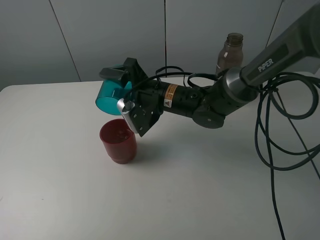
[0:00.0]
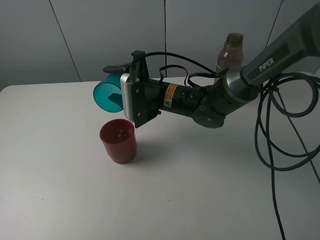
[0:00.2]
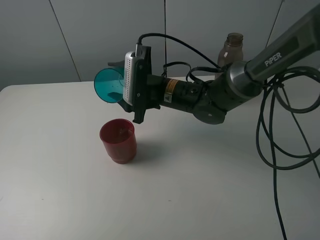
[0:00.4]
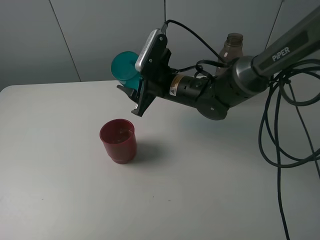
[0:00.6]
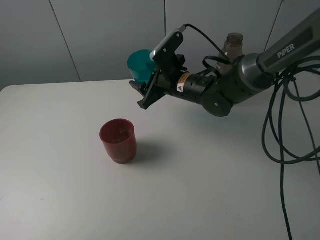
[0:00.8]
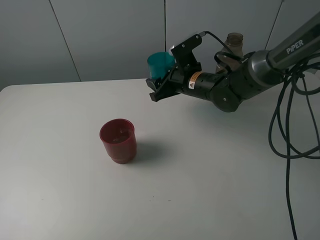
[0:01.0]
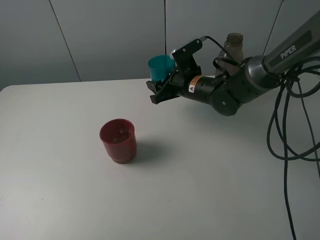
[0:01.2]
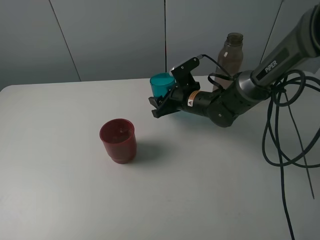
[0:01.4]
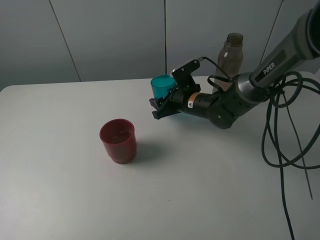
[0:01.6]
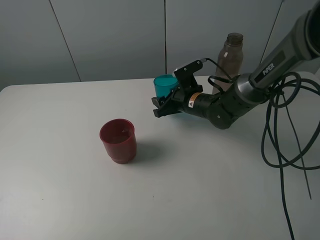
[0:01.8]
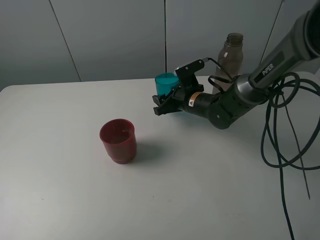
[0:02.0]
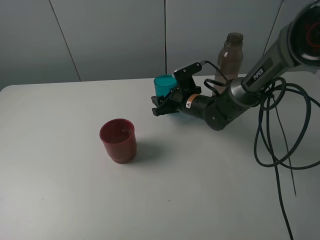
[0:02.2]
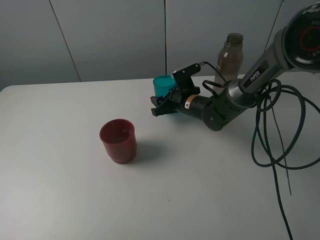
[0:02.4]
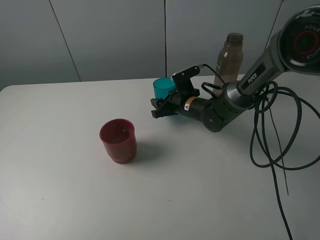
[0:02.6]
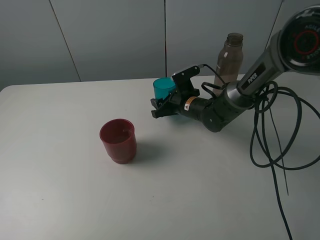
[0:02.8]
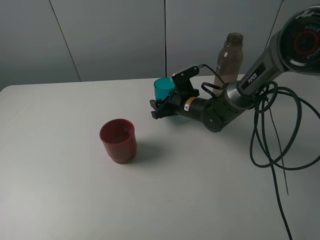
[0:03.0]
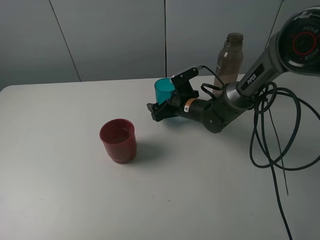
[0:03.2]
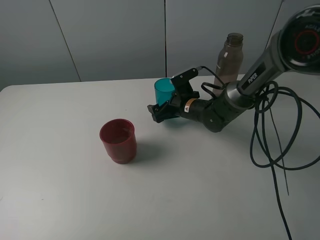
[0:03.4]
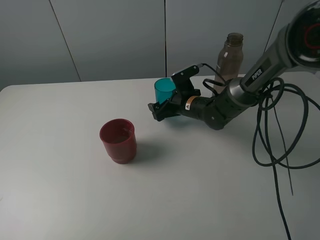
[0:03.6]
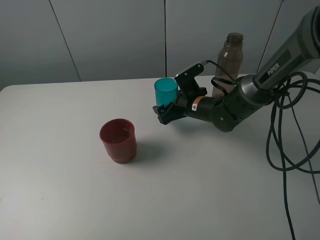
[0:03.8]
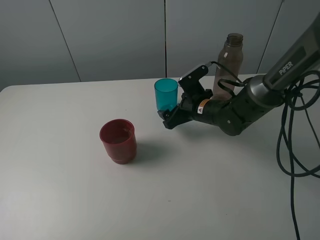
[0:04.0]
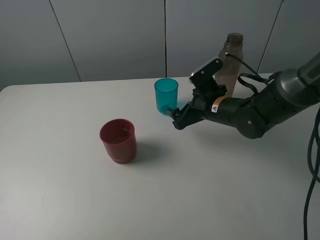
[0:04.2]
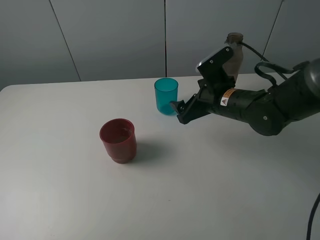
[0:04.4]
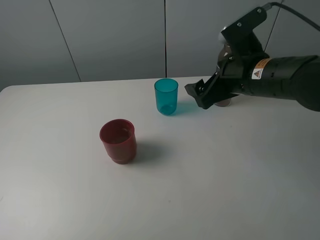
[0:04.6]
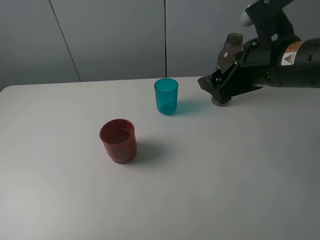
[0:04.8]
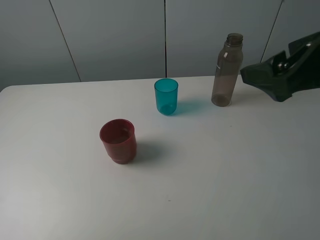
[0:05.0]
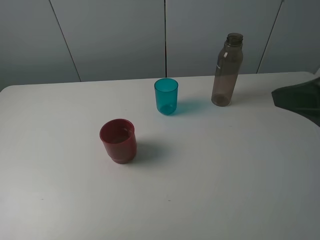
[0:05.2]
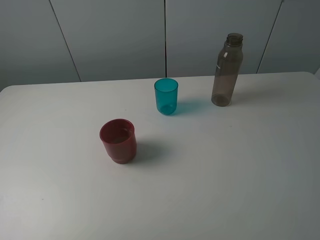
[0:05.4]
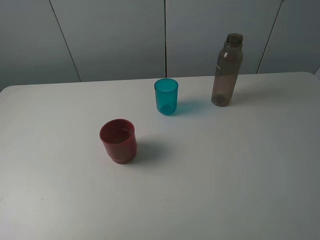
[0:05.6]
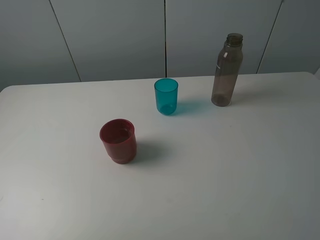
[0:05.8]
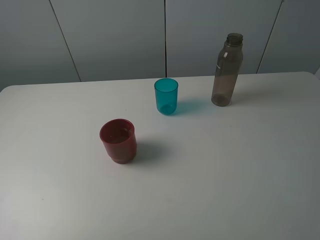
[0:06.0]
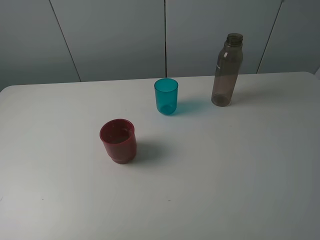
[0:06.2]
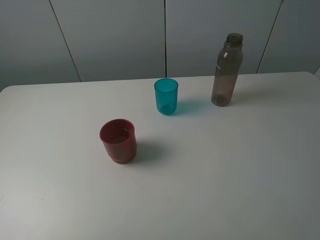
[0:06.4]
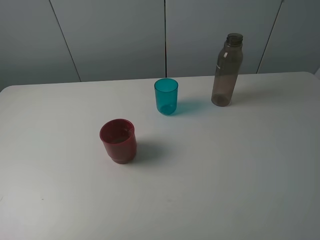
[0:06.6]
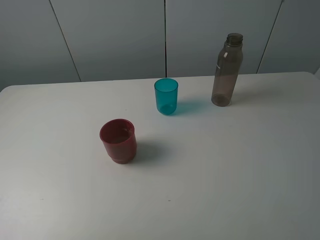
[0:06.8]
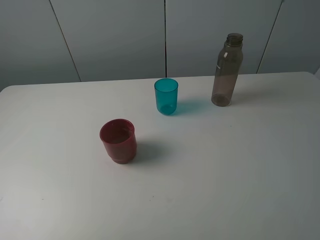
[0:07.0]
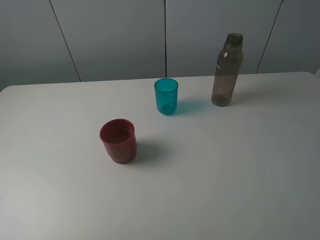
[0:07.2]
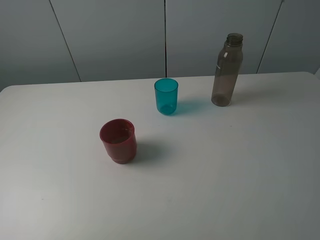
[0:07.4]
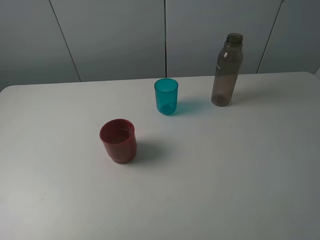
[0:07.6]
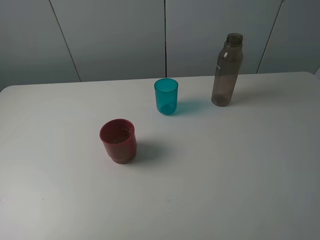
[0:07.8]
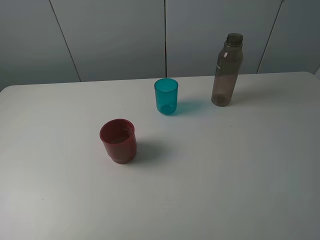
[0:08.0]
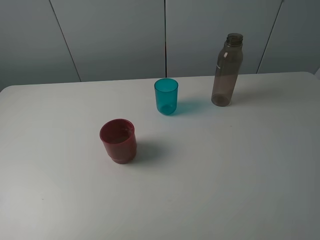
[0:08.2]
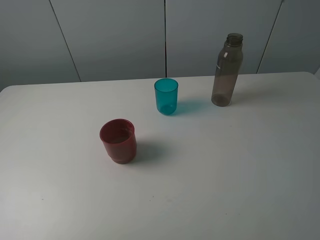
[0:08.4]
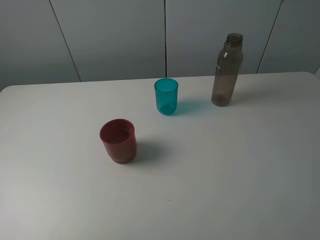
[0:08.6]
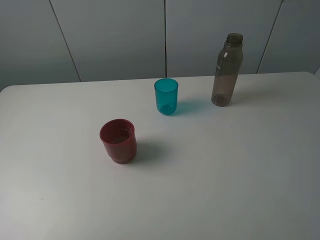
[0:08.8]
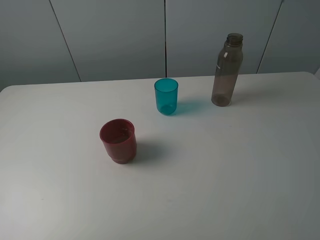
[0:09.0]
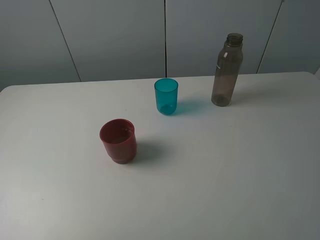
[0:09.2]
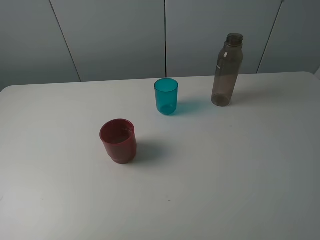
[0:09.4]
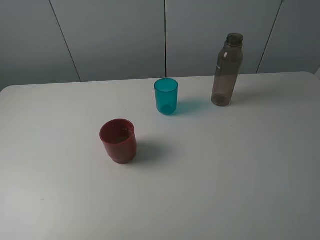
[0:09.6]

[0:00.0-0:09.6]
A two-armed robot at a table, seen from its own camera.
Task of the whole recording: pick up the bottle and pour water into the cup, then pick up the cup containing water and pour it into another cup.
Step, 0:00.2 to 0:03.2: Place the blue cup with the right gripper.
0:00.0 to 0:01.6: The right gripper is displaced to the right, downward and forward by approximately 10 cm.
0:01.6 to 0:03.2: The right gripper opens.
0:03.2 to 0:04.8: The right gripper goes some 30 cm upward, backward and to the right.
0:04.8 to 0:06.4: The right gripper moves backward and to the right, about 25 cm.
0:08.0 to 0:09.6: Both grippers stay put.
